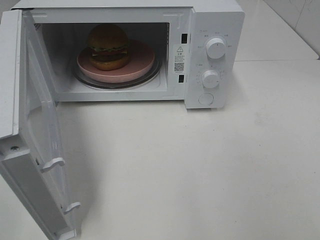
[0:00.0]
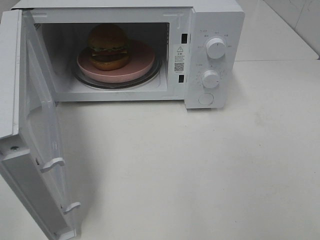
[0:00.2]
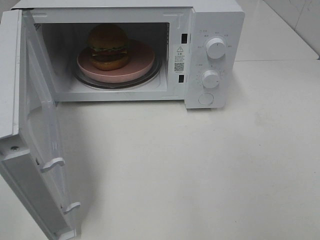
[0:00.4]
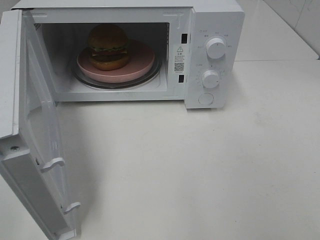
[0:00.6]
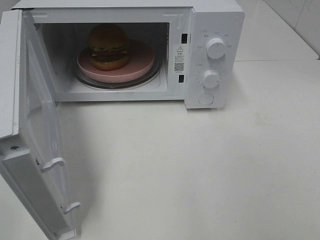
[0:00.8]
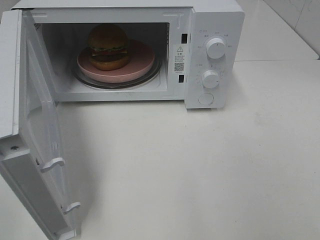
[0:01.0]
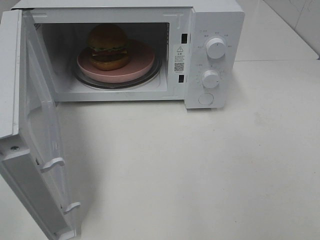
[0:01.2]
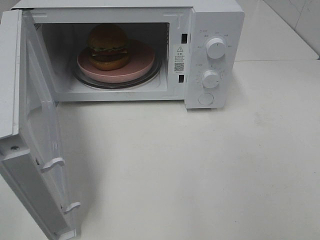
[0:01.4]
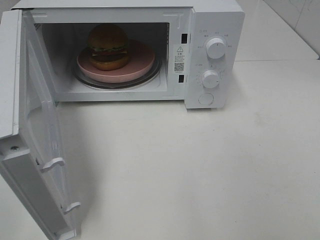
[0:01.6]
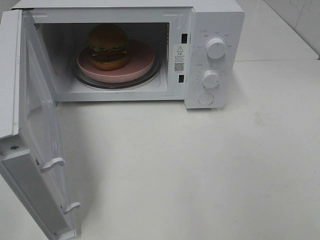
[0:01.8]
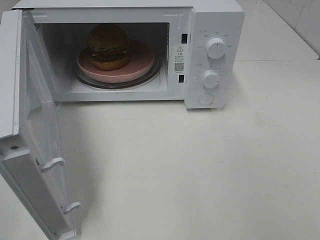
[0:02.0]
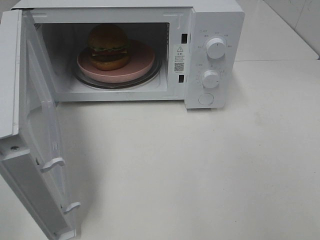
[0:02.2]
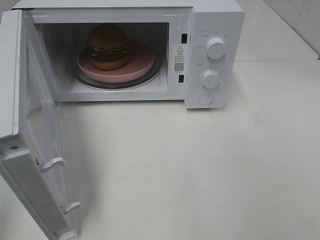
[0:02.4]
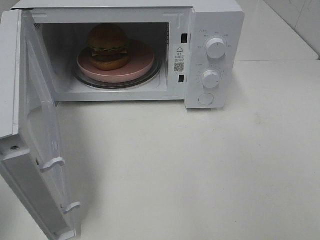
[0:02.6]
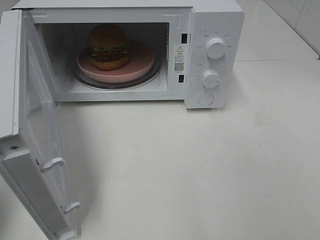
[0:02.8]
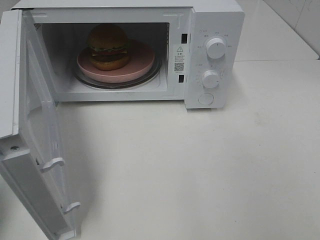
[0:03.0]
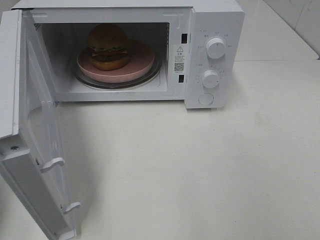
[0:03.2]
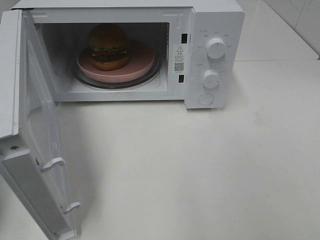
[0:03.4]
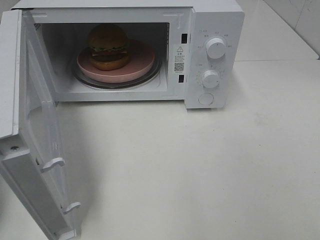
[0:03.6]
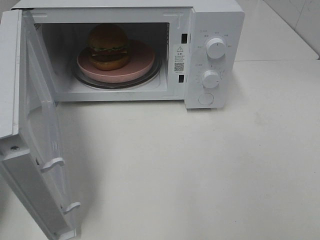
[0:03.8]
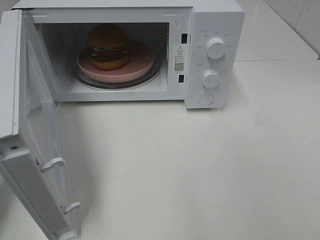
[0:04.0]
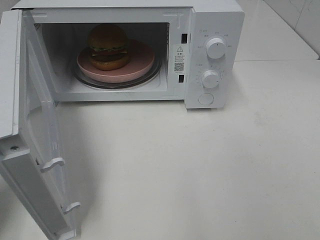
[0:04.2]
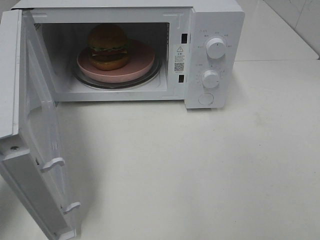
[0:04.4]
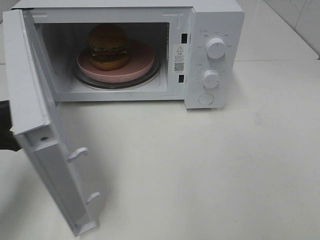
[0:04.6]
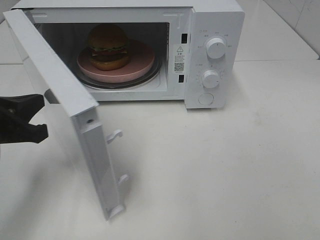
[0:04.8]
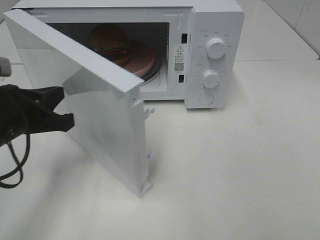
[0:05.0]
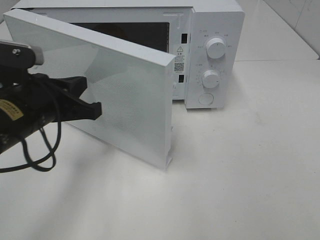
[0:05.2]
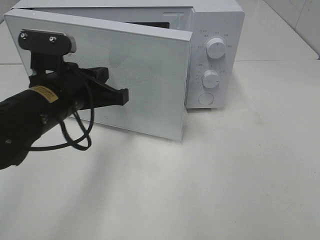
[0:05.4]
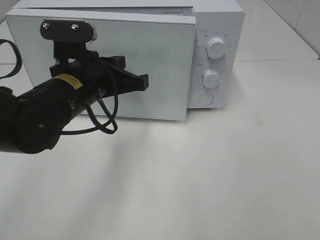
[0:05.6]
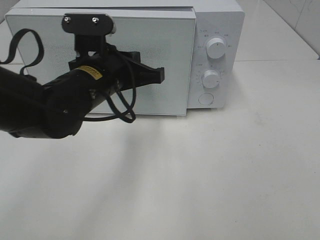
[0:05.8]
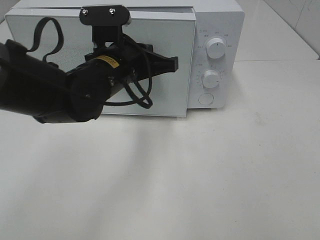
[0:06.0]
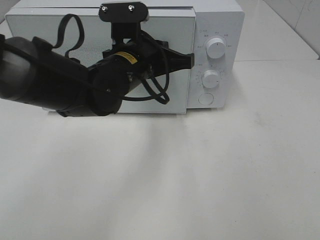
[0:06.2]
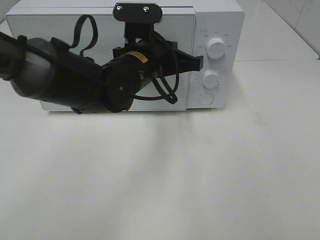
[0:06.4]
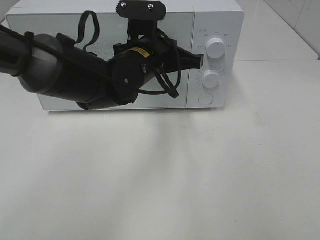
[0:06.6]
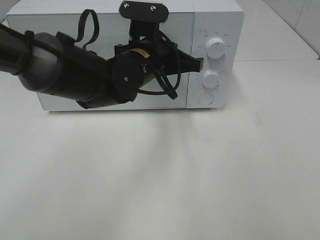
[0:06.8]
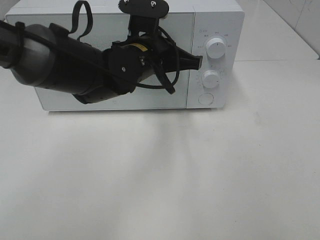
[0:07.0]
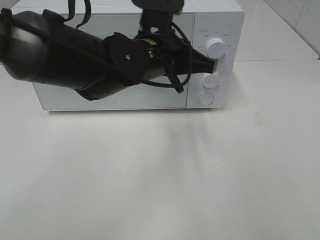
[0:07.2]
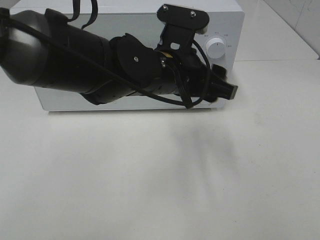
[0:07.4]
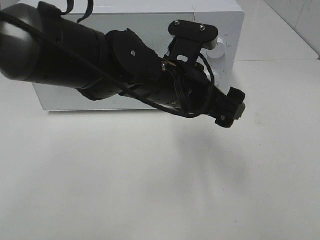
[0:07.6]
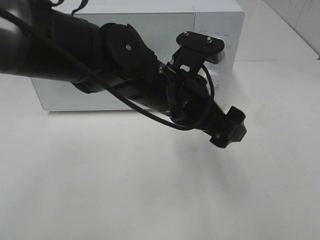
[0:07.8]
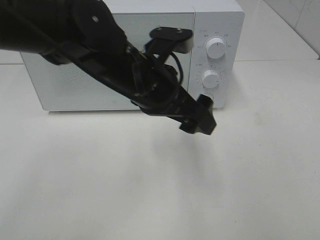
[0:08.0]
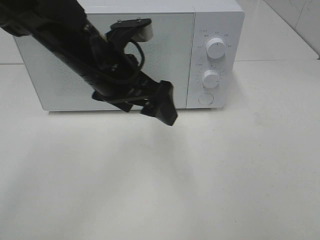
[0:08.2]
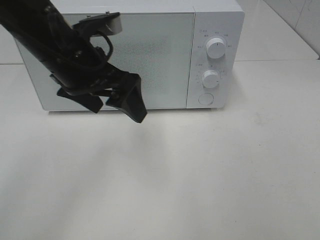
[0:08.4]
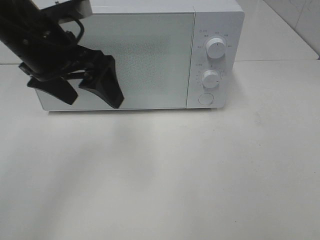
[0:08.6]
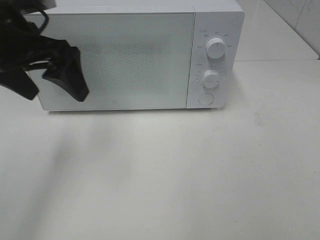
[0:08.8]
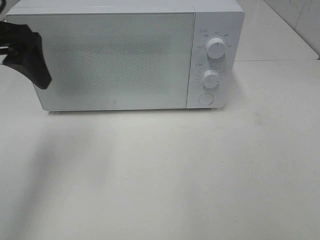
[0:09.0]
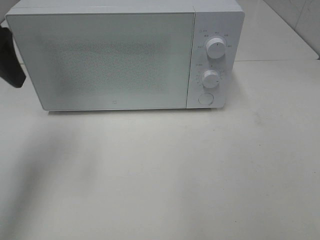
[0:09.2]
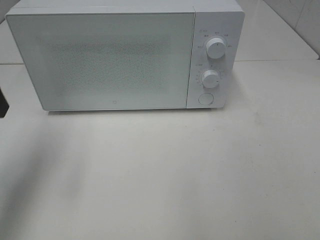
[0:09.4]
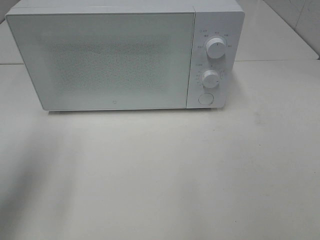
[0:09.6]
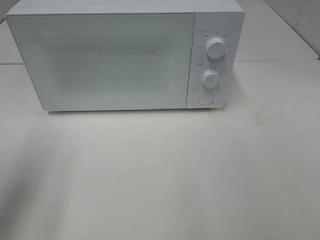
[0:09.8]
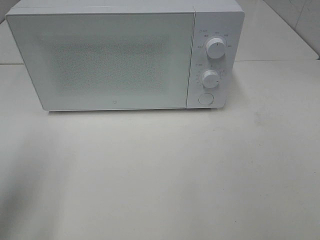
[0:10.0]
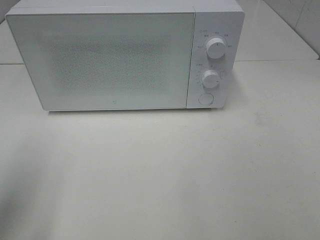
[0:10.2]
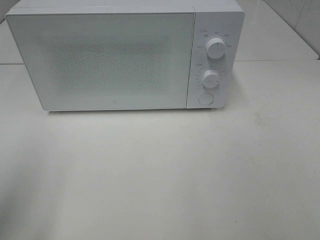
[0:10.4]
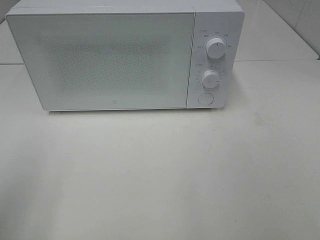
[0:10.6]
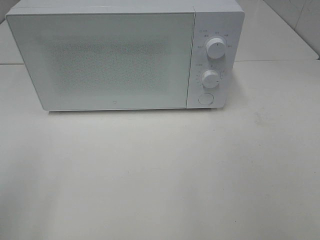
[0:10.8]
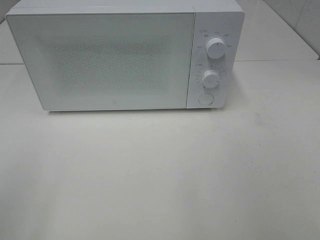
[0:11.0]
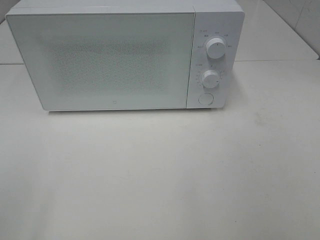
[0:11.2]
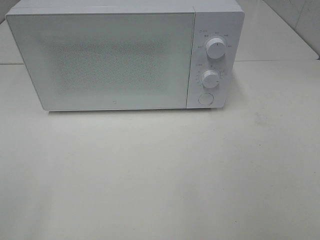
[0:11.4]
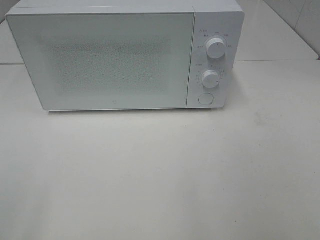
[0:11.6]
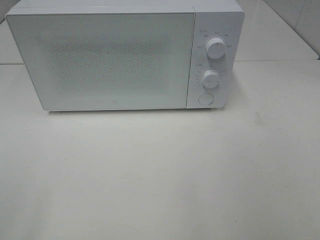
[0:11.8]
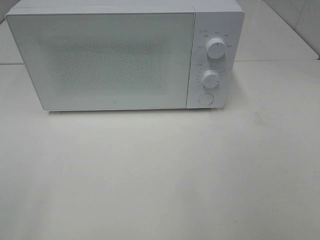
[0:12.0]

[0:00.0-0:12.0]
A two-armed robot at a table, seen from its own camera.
Task of the whole recording: Heat the burger.
Step, 0:00.0 to 0:07.0: Left hand: close the microwave door.
0:00.0 to 0:01.6: Both grippers stay put.
0:04.4 to 0:06.0: The left gripper heads to the right and forward, covering some 25 cm.
0:06.0 to 0:07.6: The left gripper is displaced to the right by about 10 cm, and opens.
0:07.6 to 0:09.0: The left gripper moves to the left and upward, some 30 cm.
0:09.0 to 0:10.4: The left gripper is displaced backward and to the left by approximately 15 cm.
0:10.4 to 0:12.0: The left gripper shifts approximately 15 cm backward.

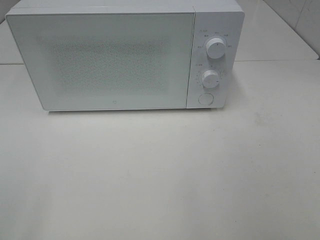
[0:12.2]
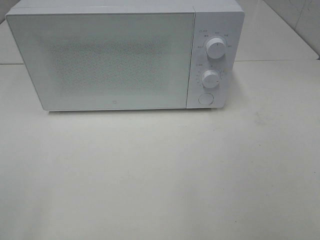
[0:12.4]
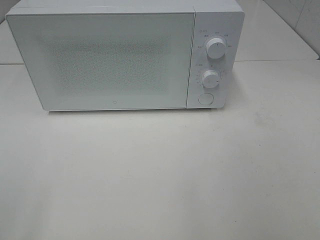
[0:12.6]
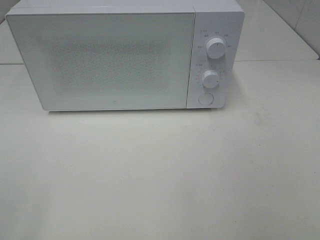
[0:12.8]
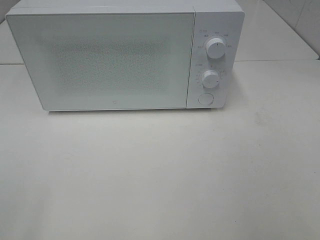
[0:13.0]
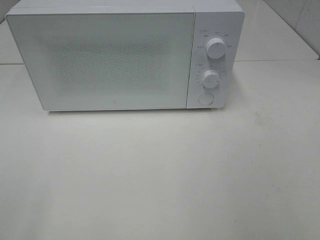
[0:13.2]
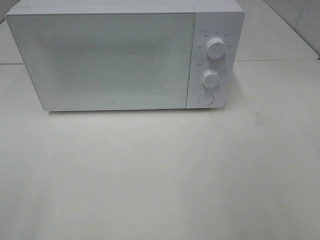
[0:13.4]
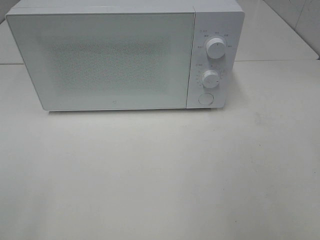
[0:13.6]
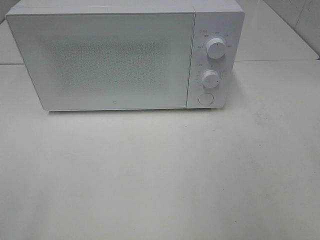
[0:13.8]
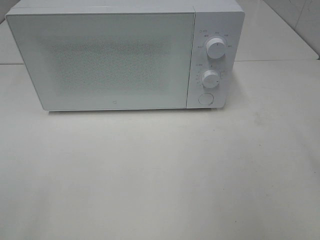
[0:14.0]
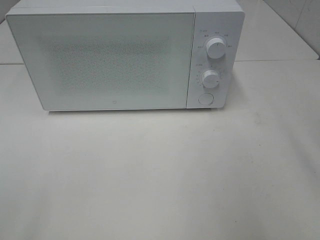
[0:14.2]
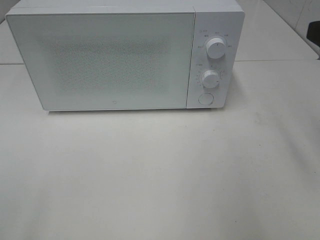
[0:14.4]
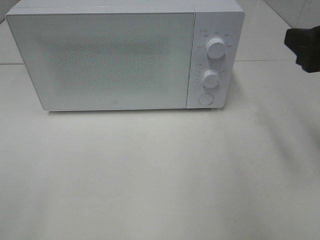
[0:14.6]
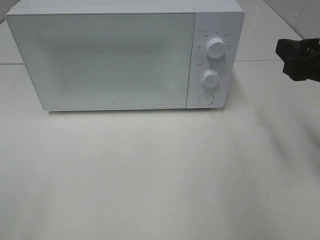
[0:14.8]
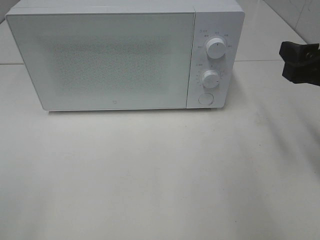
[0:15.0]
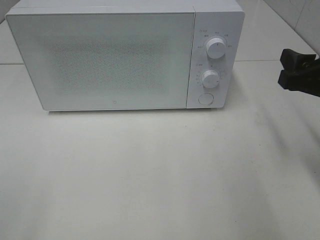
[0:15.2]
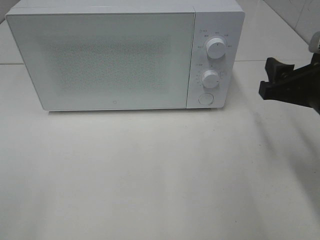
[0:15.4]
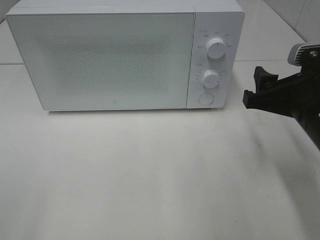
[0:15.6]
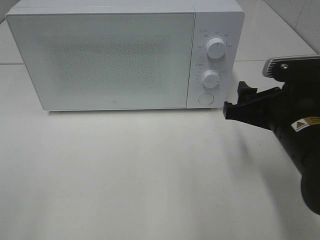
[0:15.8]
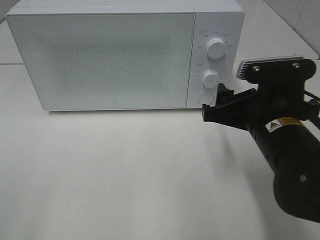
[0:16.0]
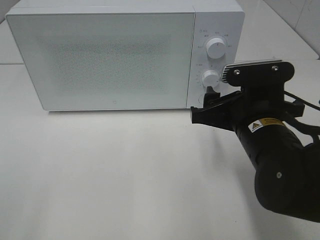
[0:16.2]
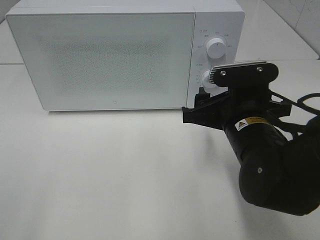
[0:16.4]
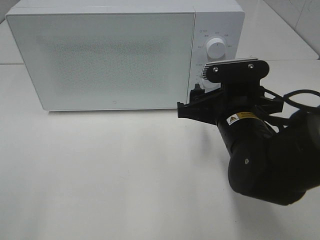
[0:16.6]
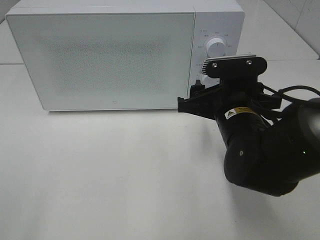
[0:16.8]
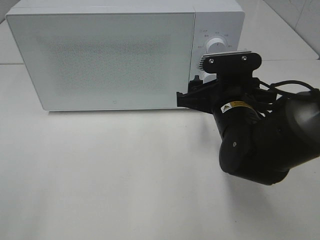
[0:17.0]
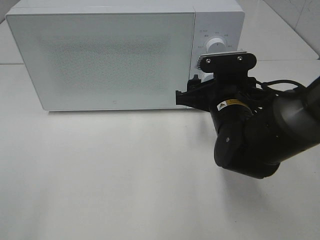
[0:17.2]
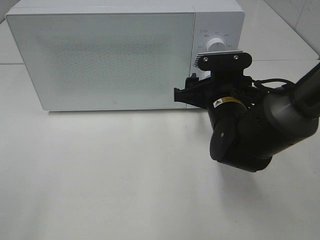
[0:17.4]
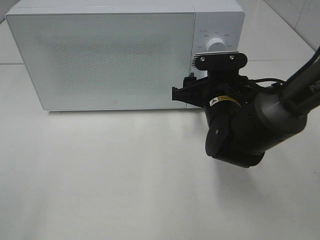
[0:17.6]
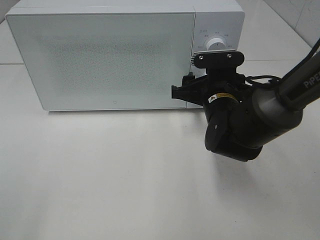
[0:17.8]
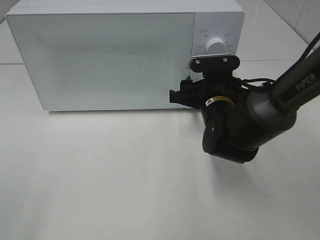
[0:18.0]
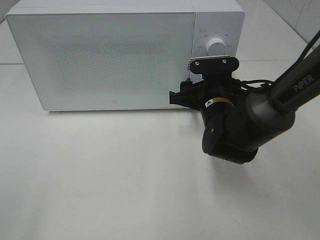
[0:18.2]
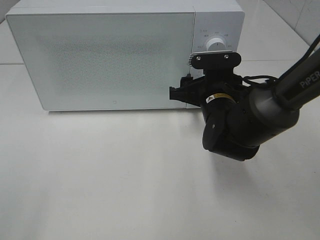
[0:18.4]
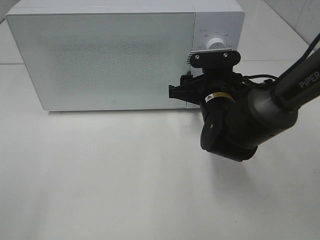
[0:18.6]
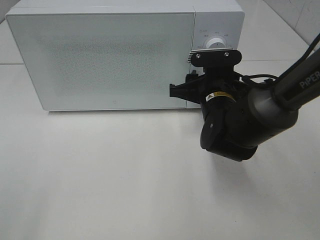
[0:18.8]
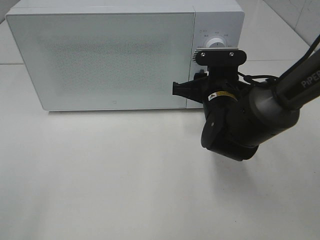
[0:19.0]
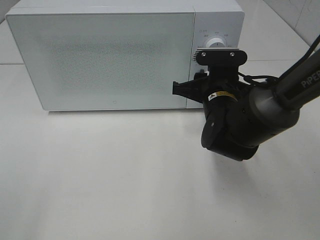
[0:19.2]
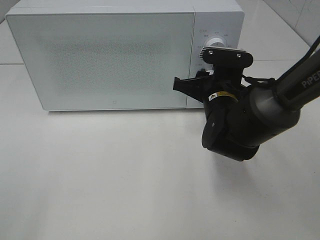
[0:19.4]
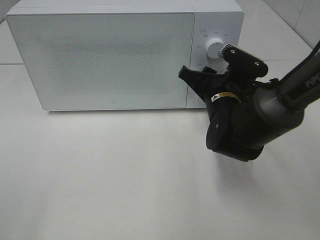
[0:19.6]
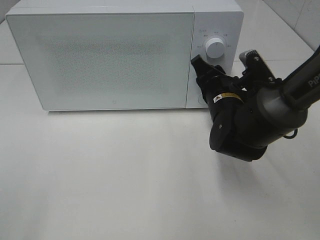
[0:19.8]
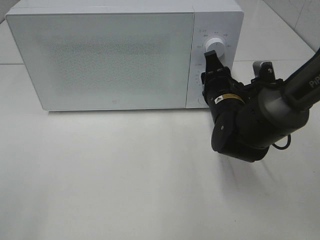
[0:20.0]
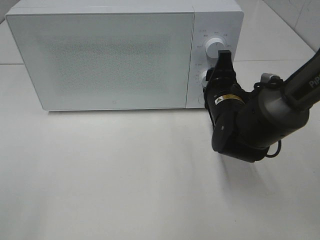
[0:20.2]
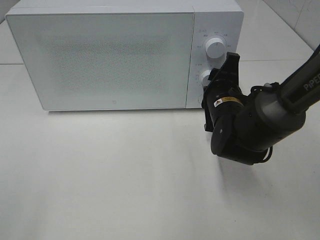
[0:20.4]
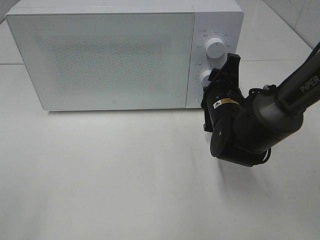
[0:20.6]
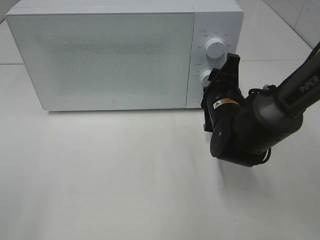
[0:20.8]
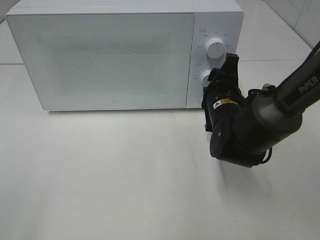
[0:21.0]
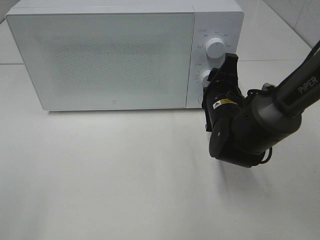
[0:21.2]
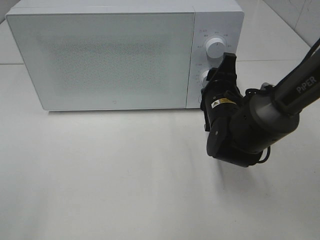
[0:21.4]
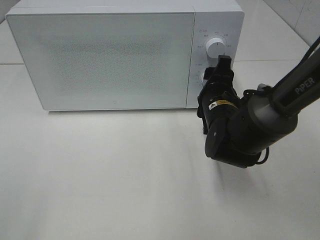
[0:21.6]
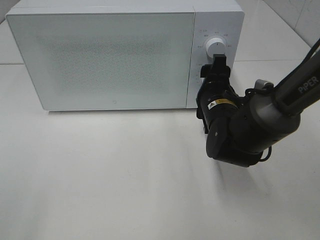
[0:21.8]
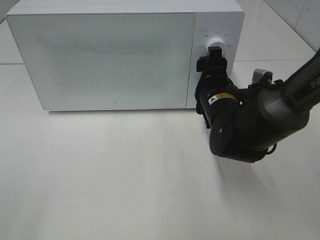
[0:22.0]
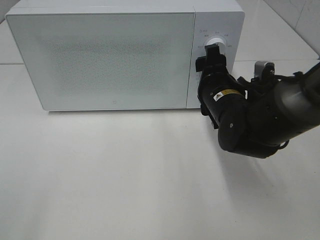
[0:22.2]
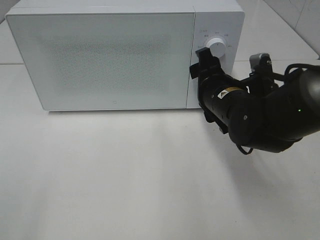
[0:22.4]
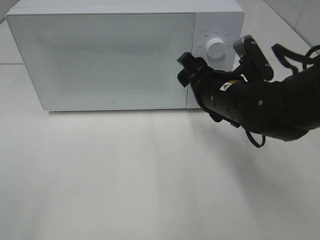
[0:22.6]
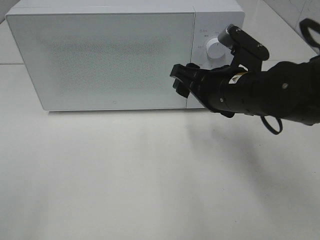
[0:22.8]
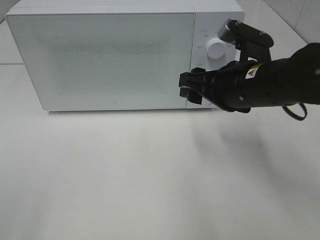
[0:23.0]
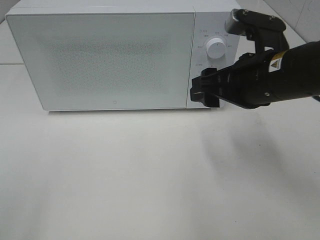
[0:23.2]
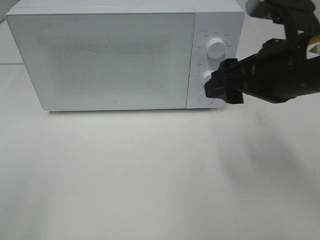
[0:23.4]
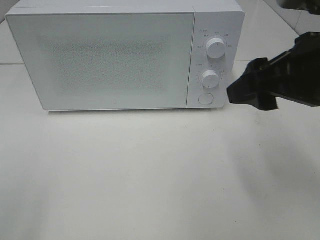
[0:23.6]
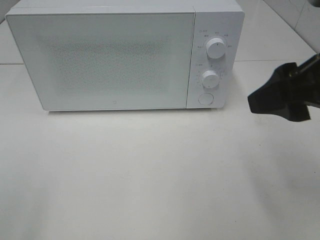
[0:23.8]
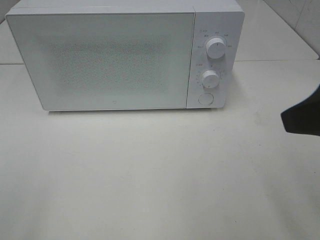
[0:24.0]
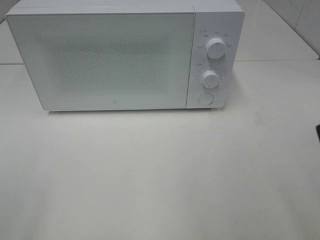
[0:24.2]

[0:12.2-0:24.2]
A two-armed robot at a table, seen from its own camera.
Task of the whole recording: Heat the burger.
Step, 0:12.2 to 0:21.6: Right hand: twist timer button.
0:13.8 to 0:15.2: The right gripper shifts roughly 15 cm downward and forward.
0:15.2 to 0:16.6: The right gripper moves to the left and downward, some 15 cm.
0:16.6 to 0:18.2: The right gripper is displaced forward by about 10 cm.
0:21.2 to 0:22.6: The right gripper goes some 5 cm upward.
0:22.6 to 0:24.2: The right gripper shifts roughly 25 cm backward, upward and to the right.
